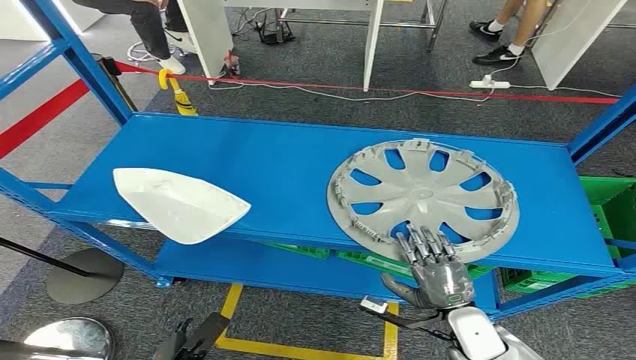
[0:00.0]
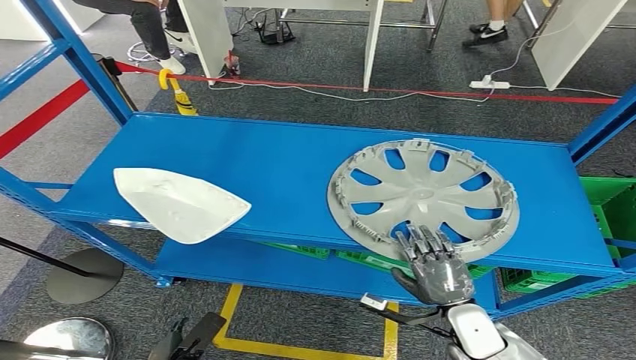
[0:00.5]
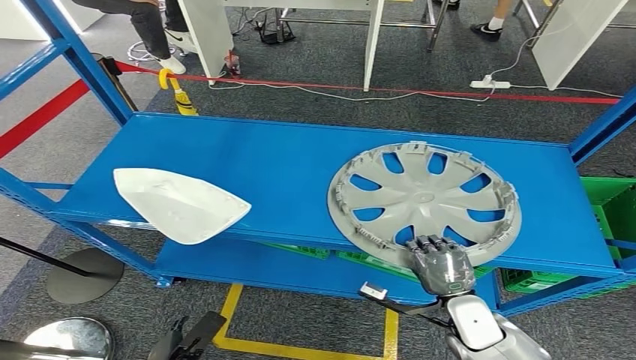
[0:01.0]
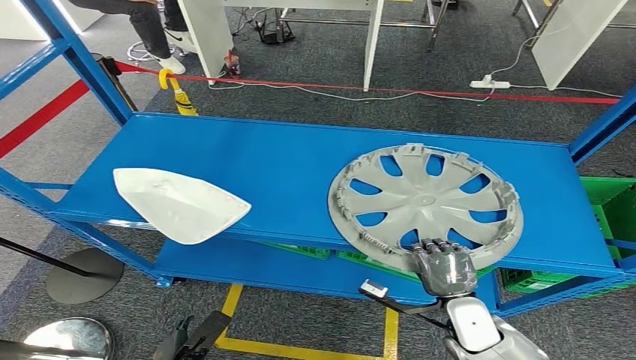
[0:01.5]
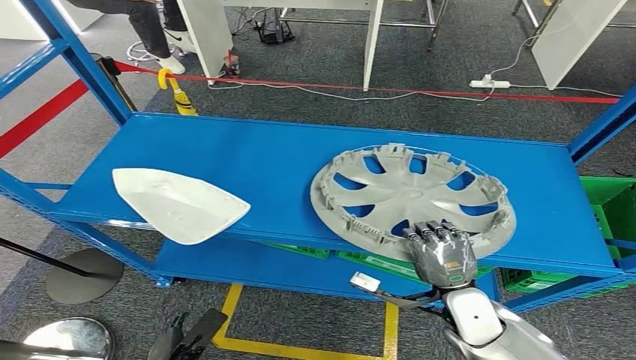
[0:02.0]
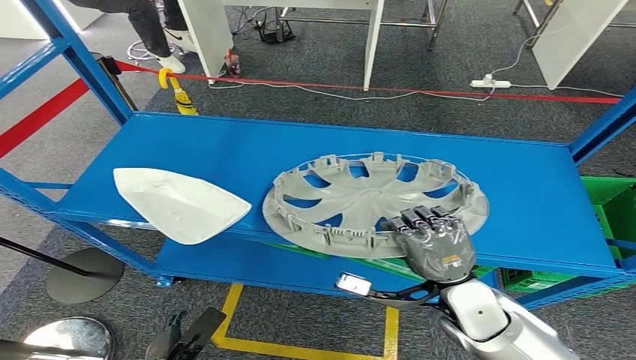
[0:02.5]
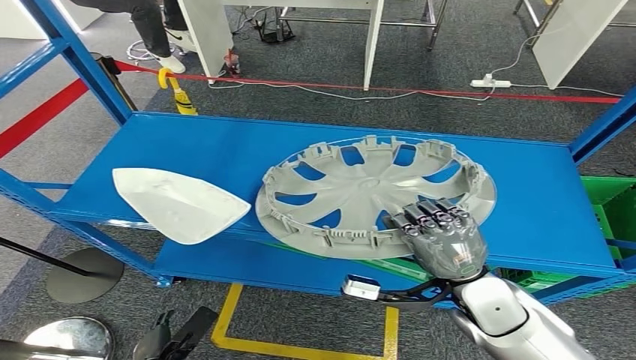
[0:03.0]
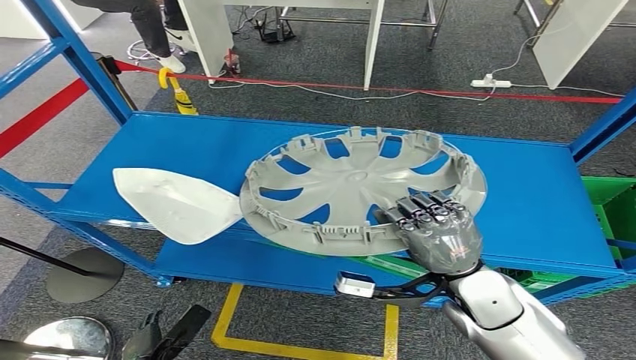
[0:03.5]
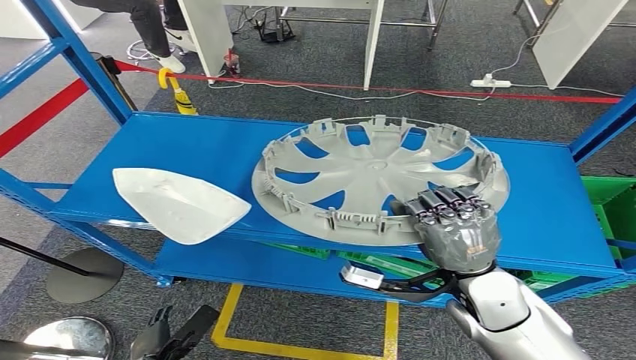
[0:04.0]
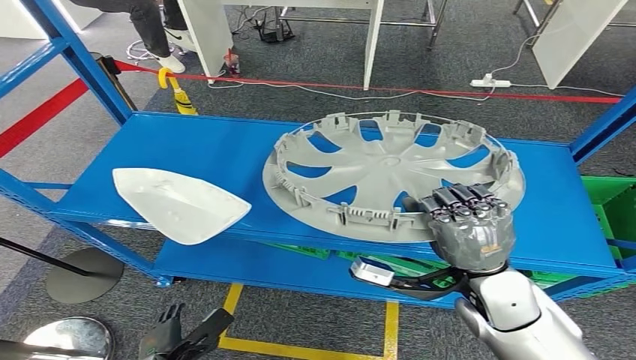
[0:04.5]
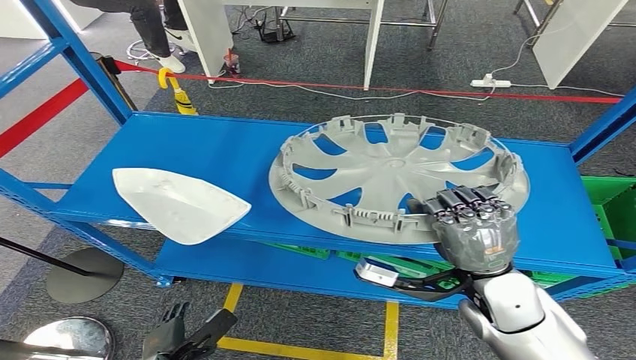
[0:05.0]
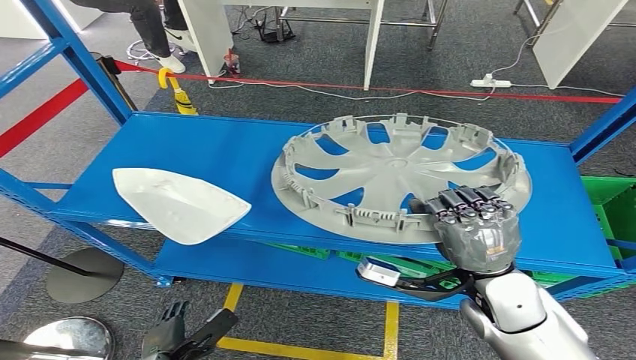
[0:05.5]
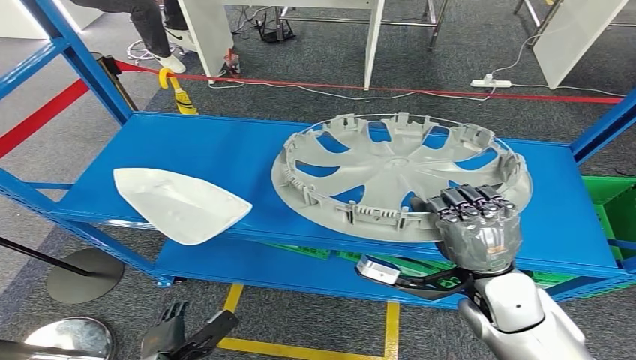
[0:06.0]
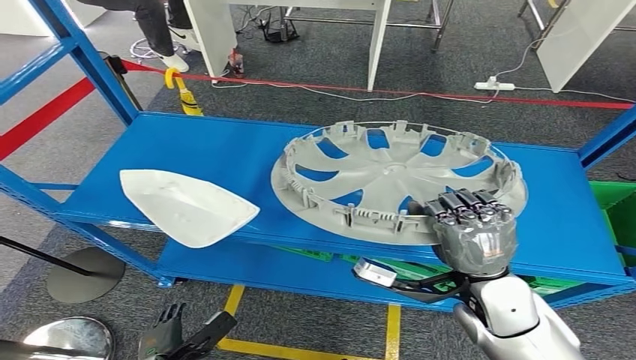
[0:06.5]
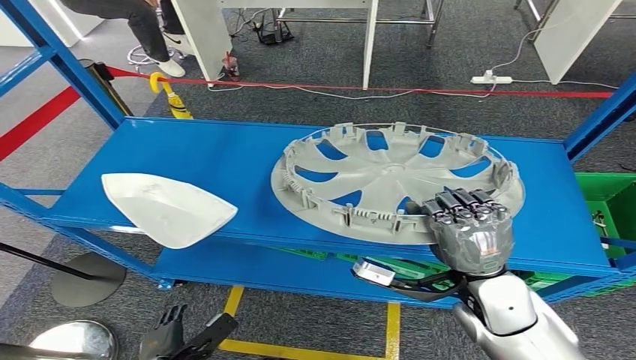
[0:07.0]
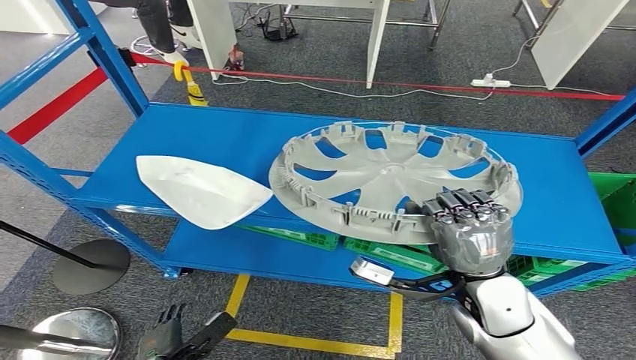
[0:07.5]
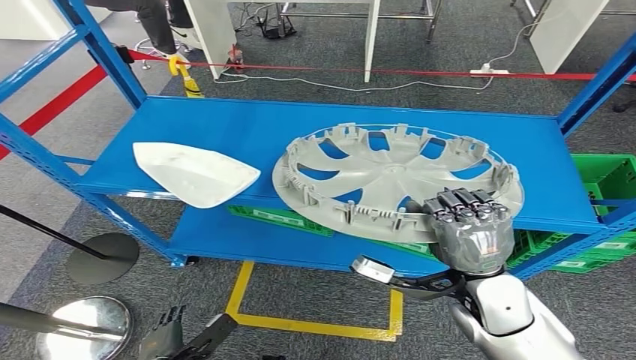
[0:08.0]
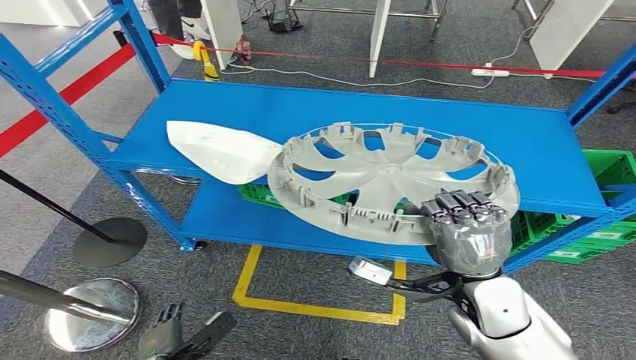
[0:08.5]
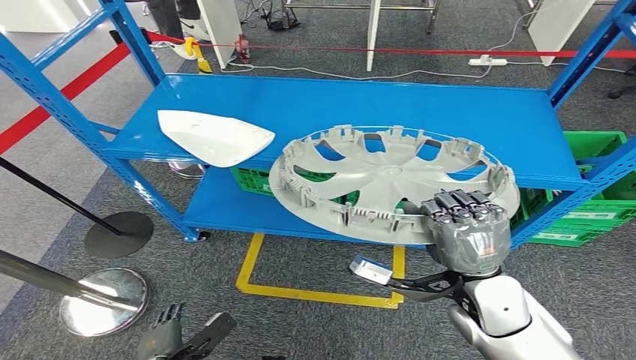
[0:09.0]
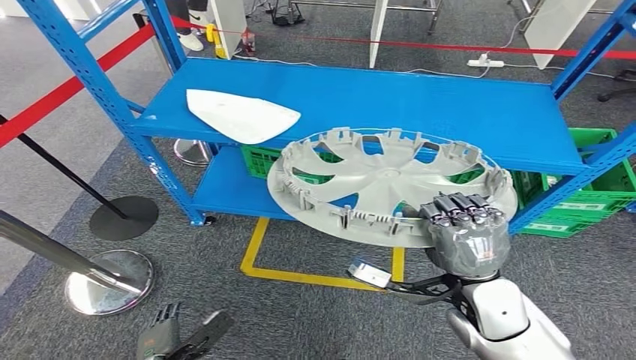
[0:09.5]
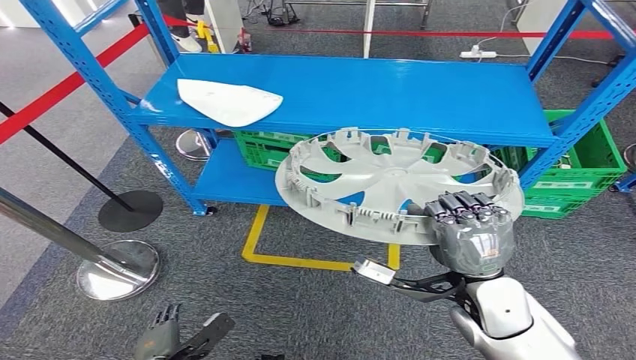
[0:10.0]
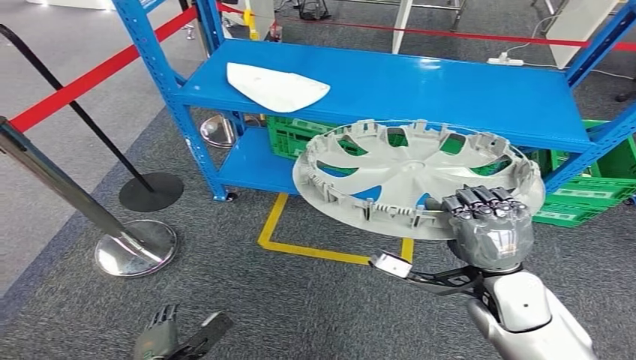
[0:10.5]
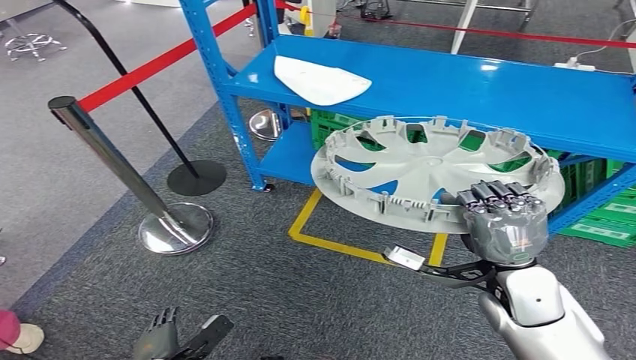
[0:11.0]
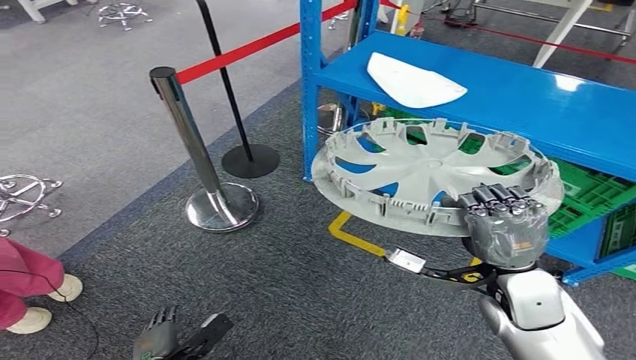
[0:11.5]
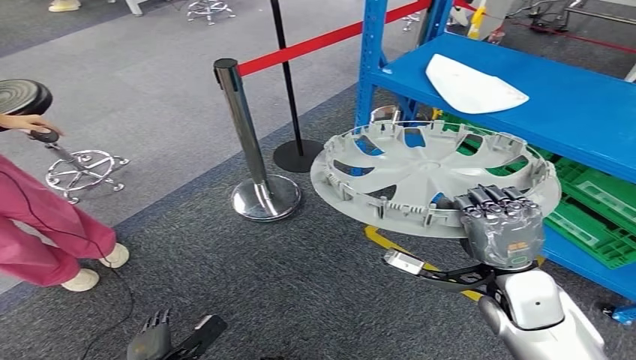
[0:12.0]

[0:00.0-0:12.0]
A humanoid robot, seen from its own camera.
Step, 0:00.0 to 0:05.0: Pick up the small parts from the shelf.
0:02.0 to 0:04.0: The right hand shifts some 10 cm upward.
0:04.0 to 0:06.0: The hands stay close to where they were, moving slightly.

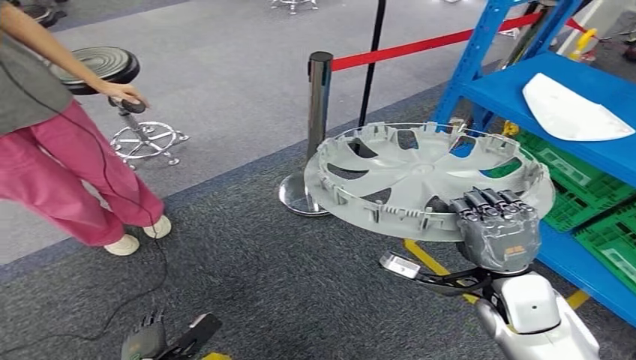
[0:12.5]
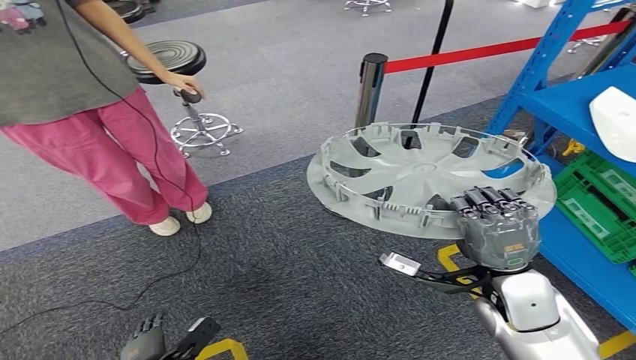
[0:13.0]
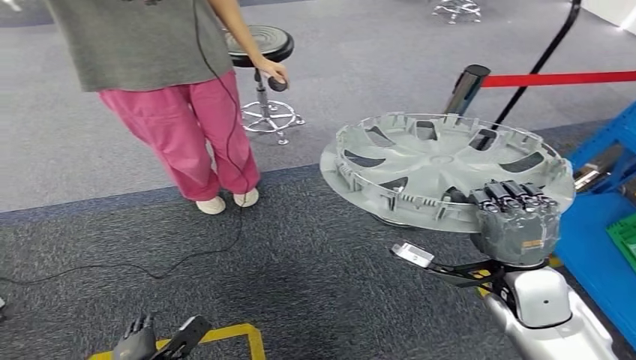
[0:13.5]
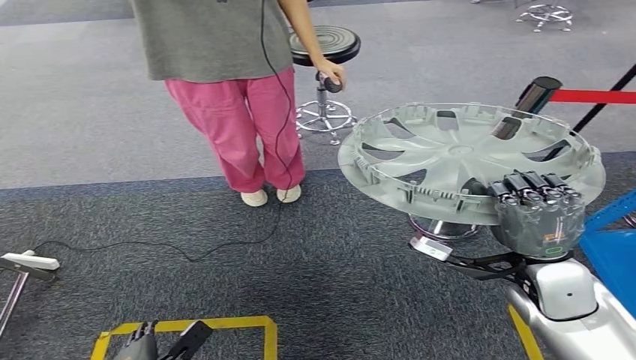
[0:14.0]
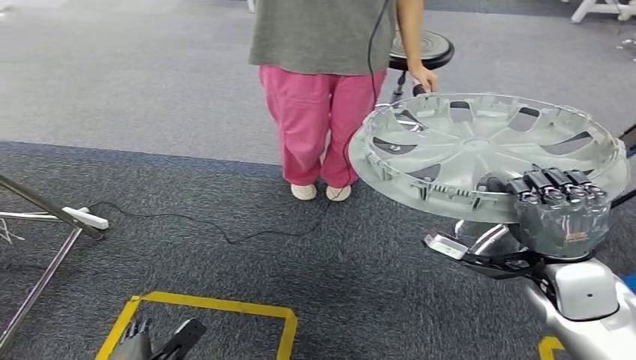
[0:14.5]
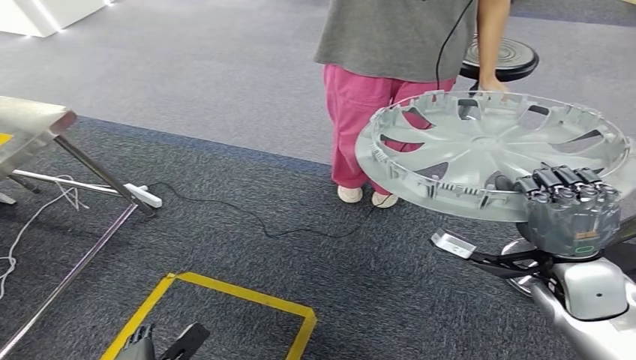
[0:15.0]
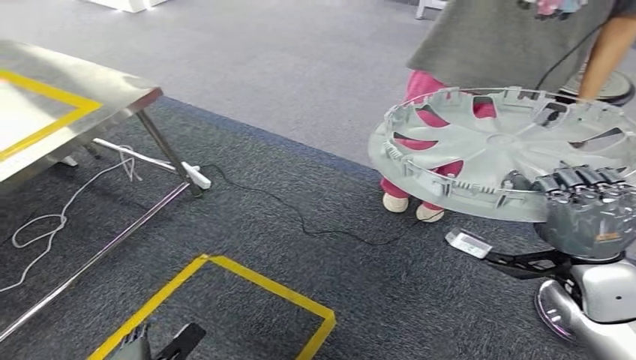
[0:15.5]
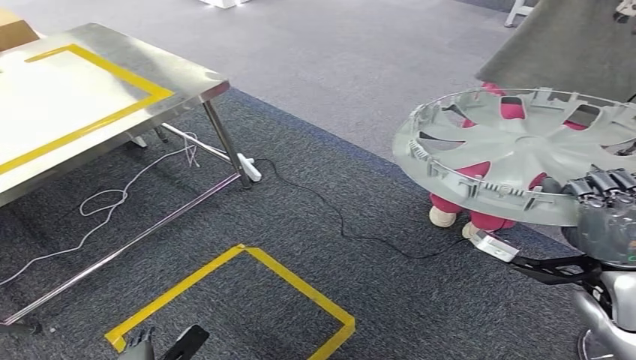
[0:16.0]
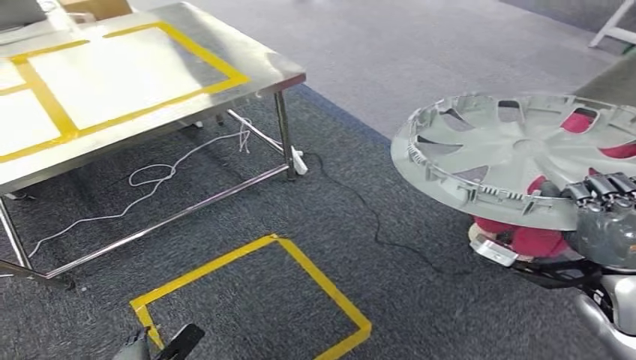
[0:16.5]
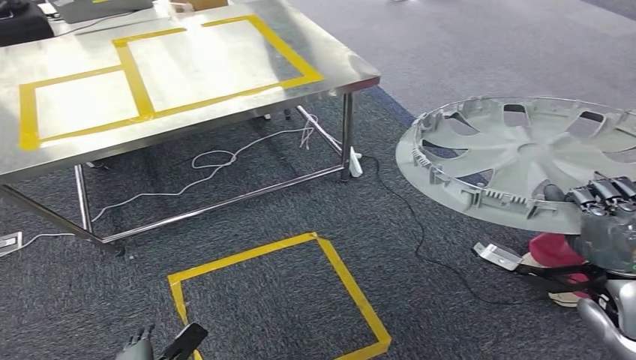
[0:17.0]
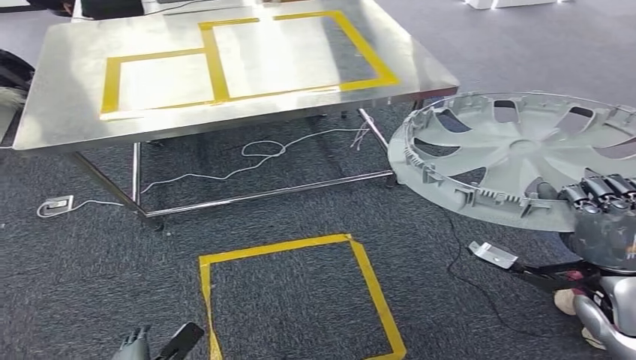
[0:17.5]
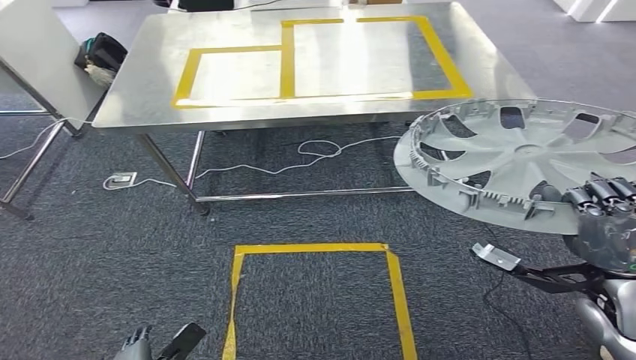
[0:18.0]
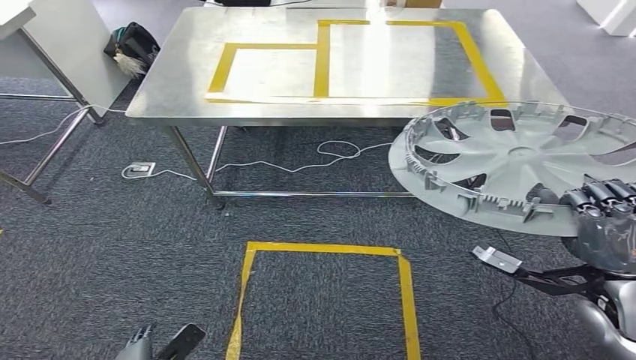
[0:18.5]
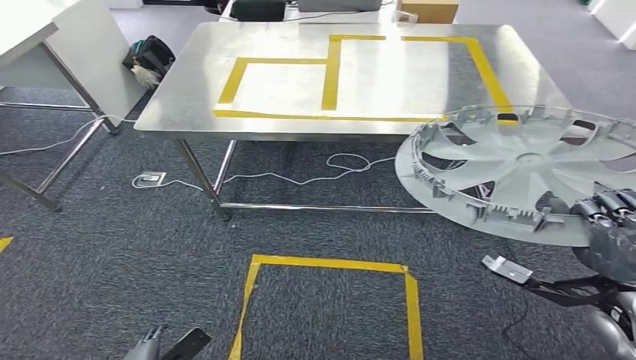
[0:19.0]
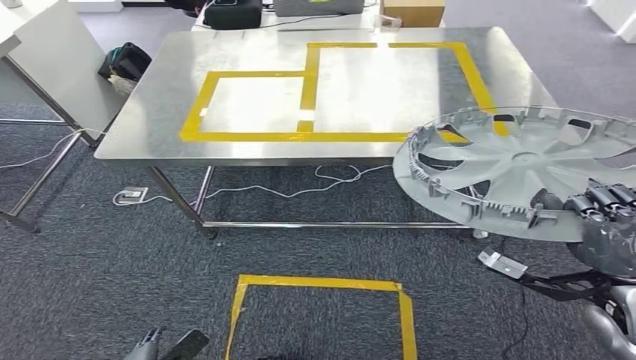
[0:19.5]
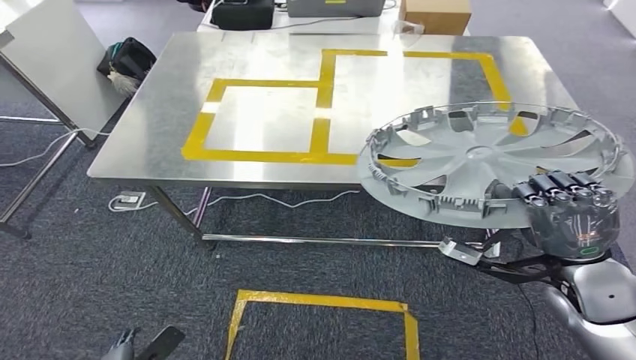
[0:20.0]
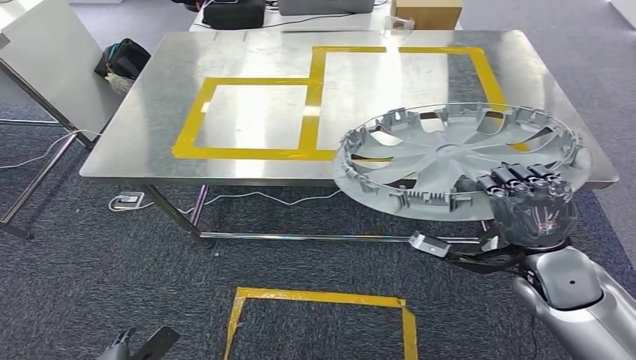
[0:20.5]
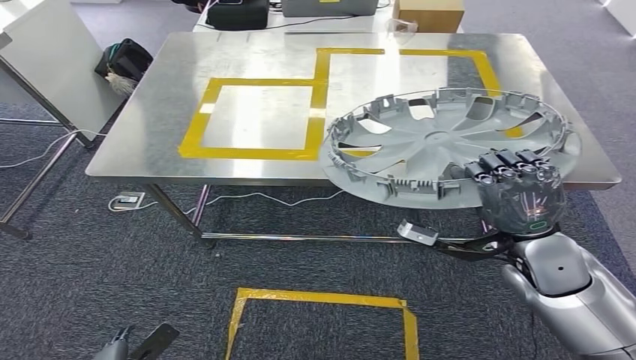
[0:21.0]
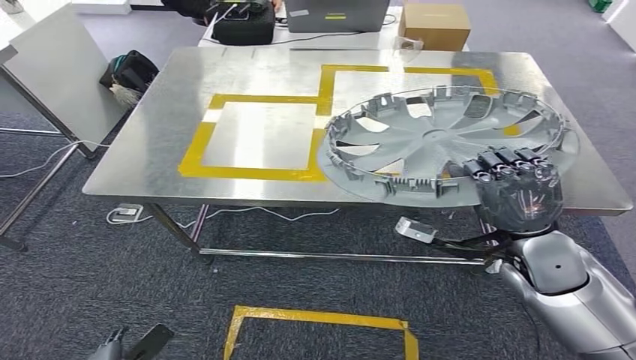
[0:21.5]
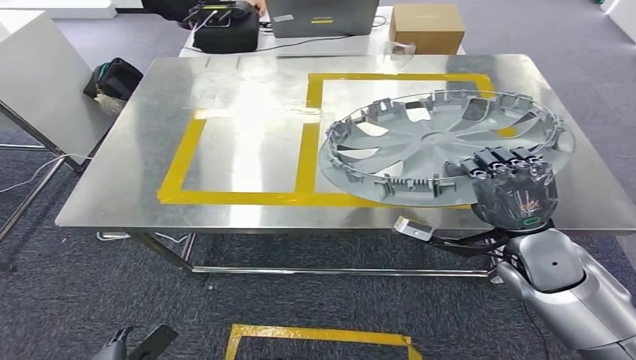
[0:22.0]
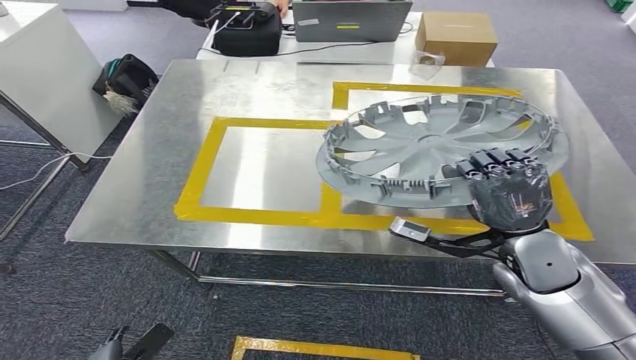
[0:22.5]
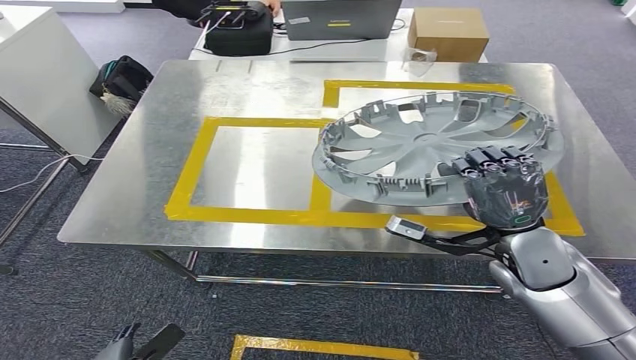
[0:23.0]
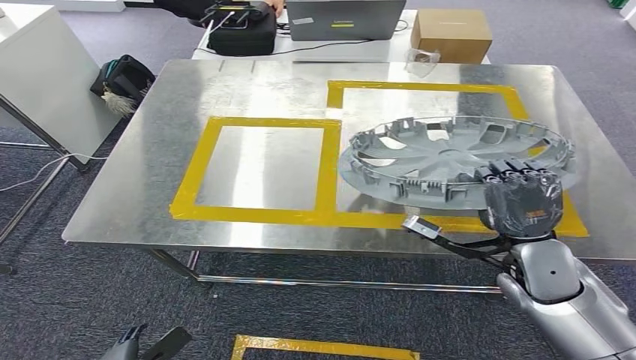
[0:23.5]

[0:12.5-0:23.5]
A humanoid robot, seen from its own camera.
Step, 0:12.5 to 0:19.0: Move the small parts to the workbench.
